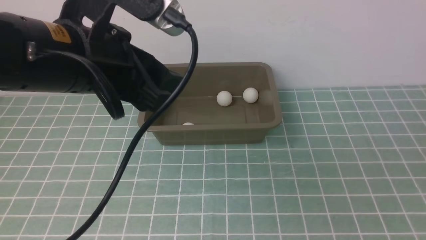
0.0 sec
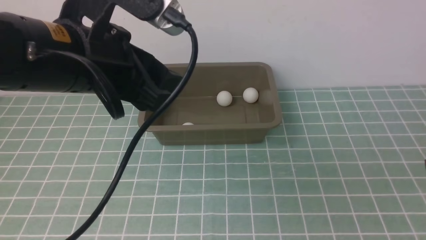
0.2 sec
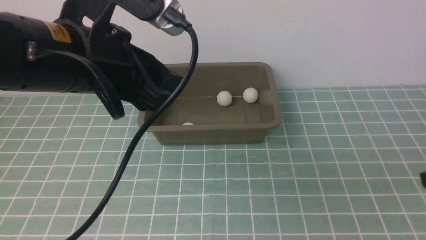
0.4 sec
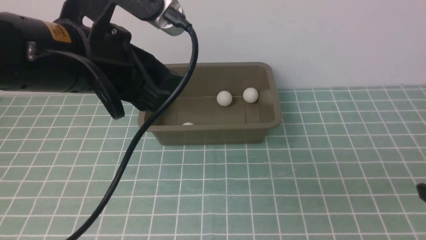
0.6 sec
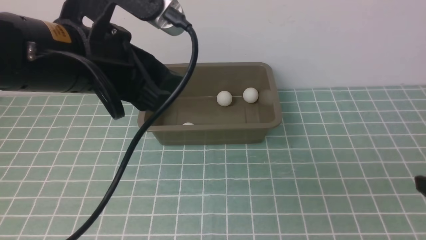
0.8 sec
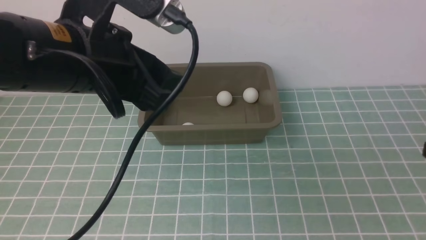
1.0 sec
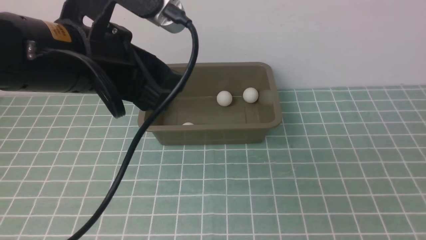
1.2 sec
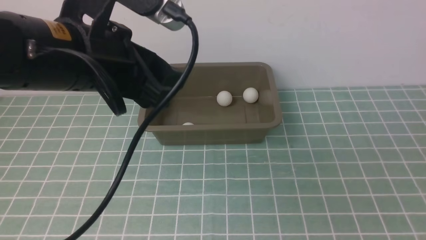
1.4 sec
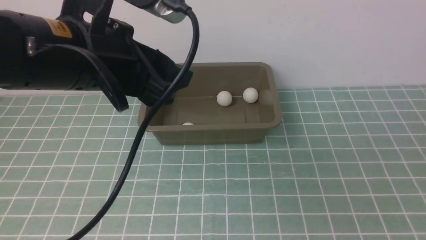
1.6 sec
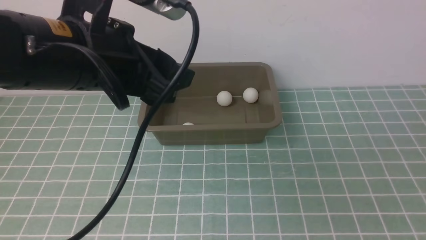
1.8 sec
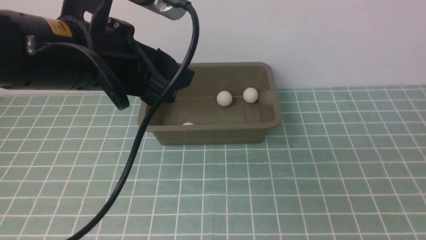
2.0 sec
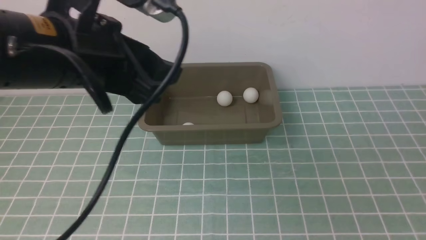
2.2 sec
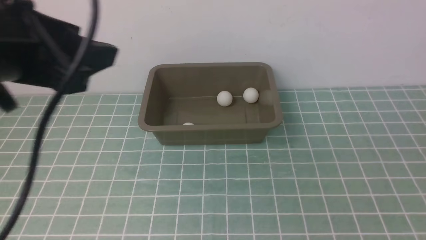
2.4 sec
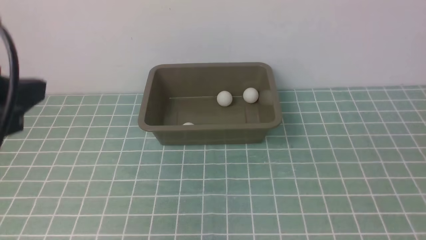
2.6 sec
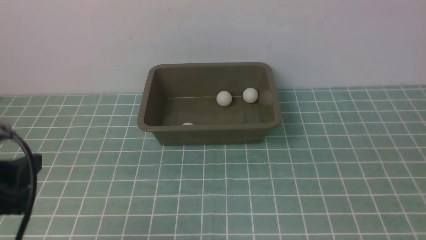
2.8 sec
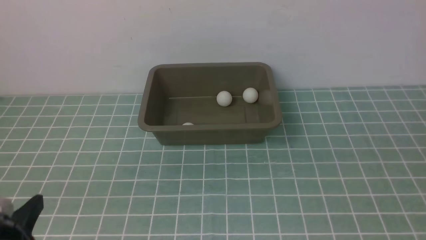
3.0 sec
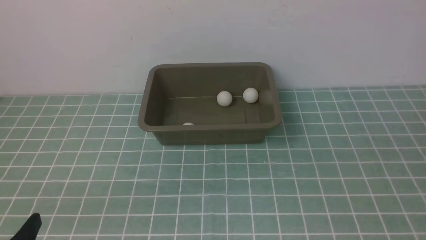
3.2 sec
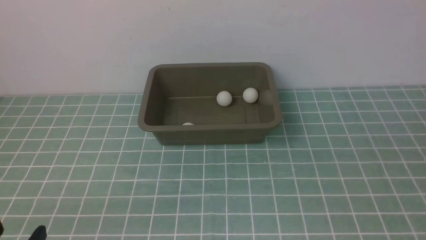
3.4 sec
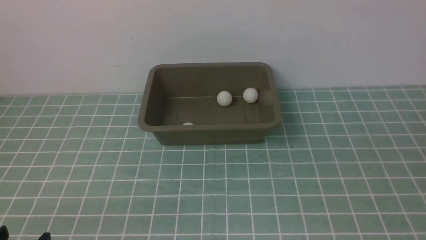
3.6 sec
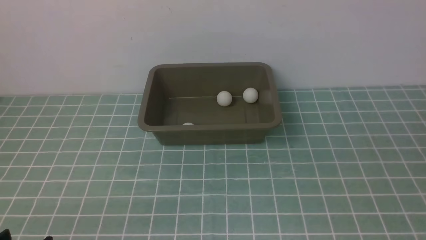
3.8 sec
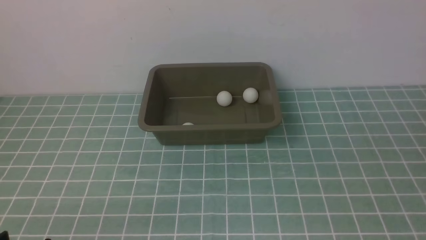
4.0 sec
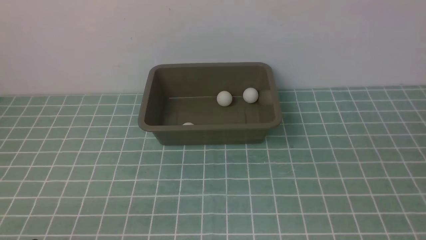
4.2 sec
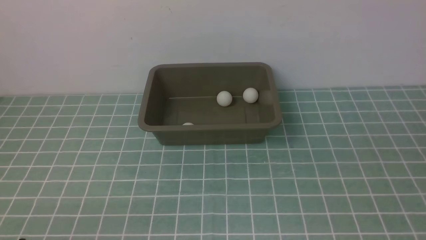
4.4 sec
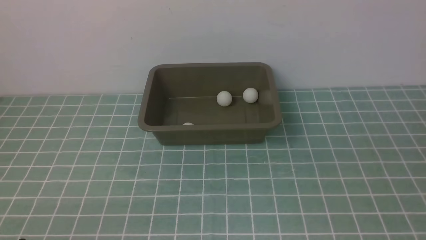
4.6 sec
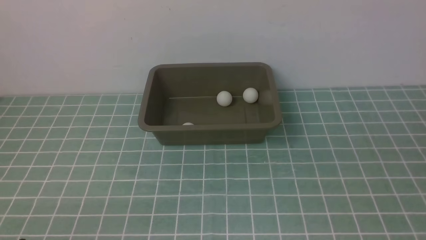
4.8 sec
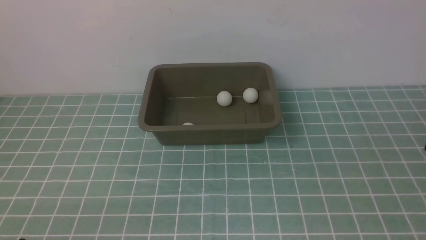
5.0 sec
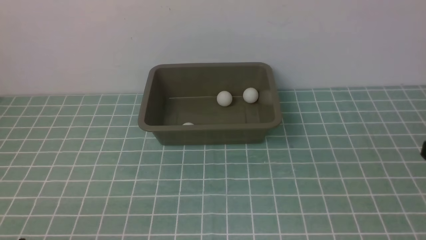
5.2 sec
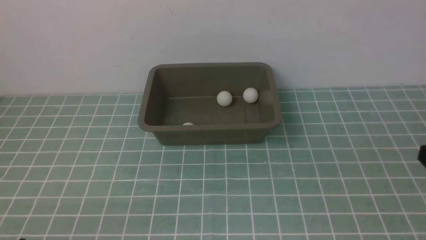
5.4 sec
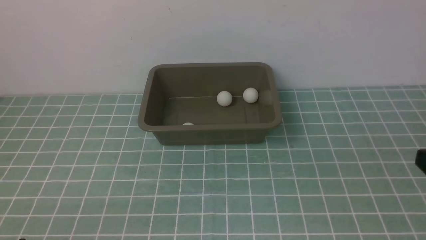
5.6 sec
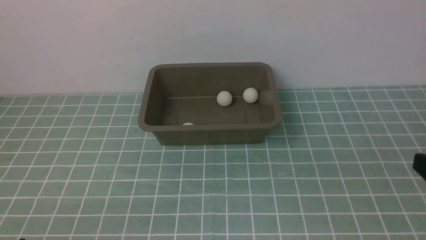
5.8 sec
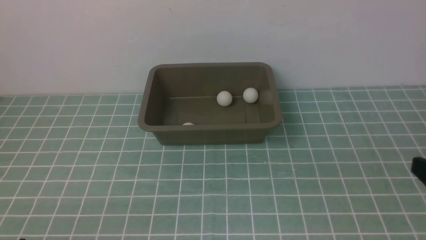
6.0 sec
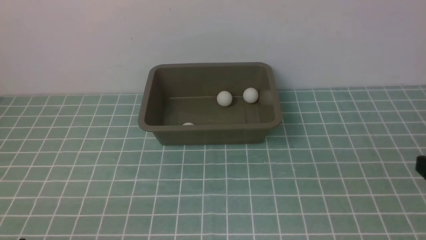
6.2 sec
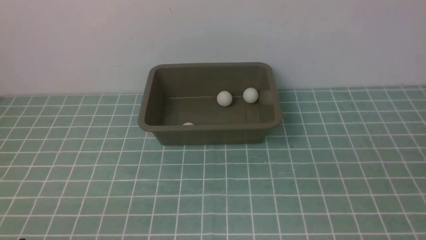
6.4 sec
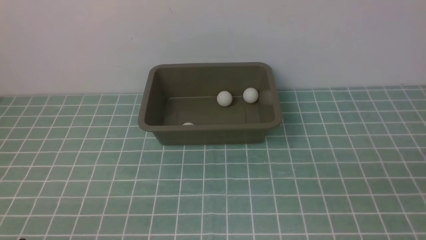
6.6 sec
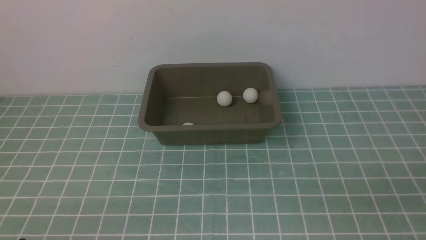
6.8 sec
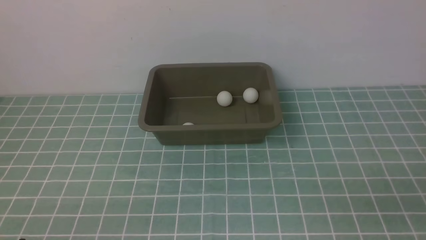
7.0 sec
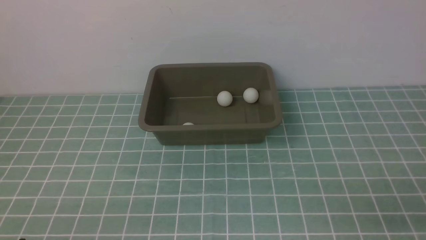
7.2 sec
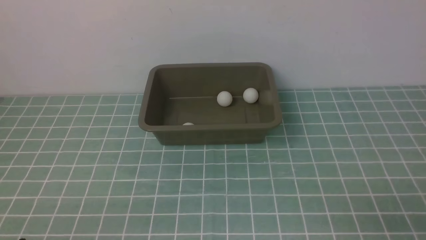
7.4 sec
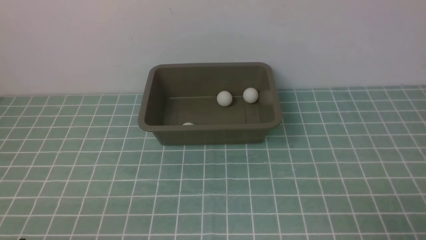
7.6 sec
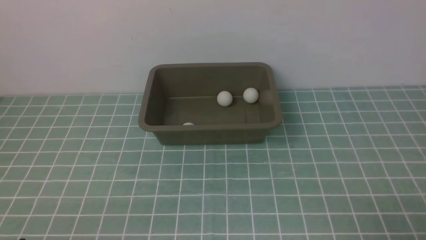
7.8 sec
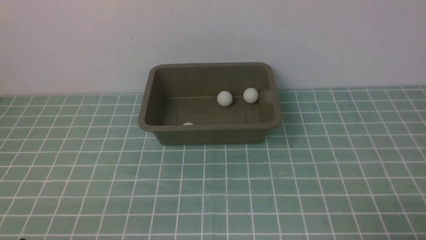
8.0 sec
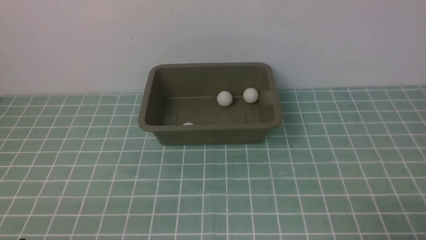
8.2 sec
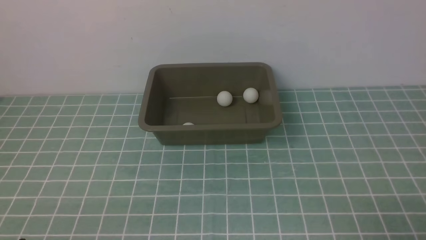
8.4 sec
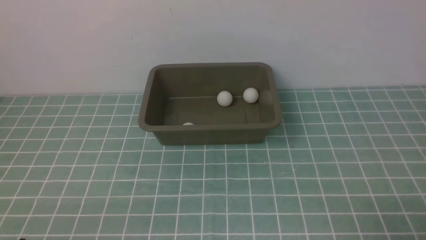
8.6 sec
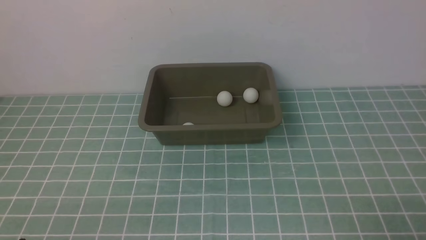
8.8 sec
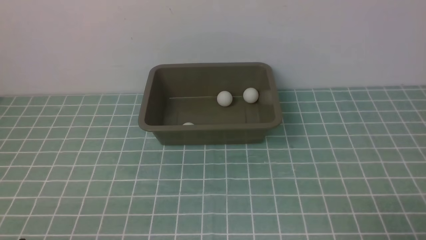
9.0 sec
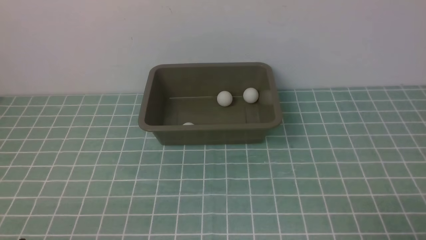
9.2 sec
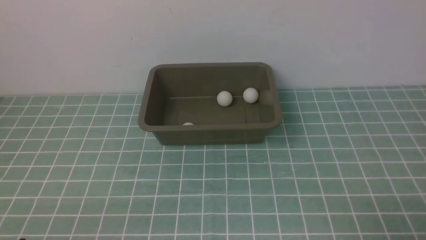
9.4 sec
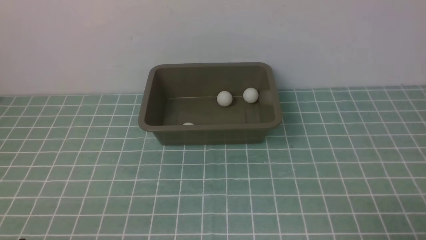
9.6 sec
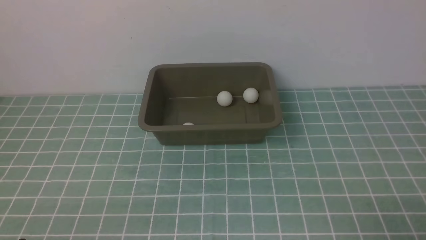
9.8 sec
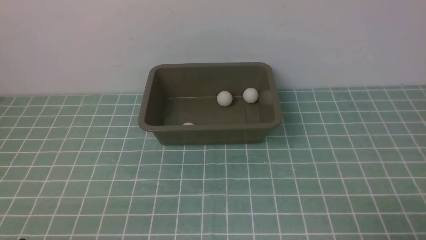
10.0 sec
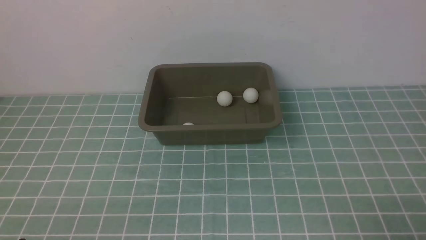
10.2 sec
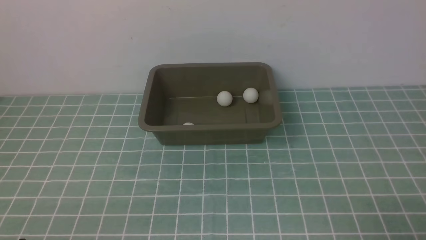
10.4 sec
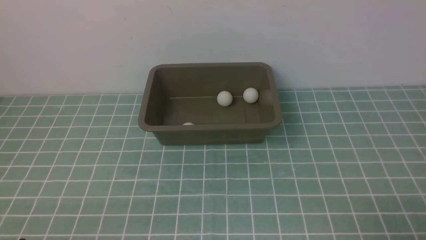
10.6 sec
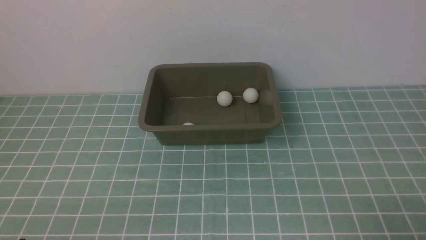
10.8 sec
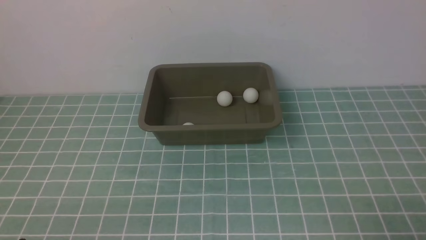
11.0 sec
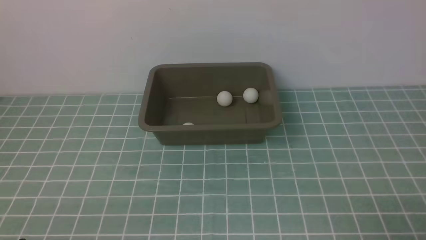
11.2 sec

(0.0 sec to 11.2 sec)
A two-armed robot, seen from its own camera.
0.0 sec - 1.6 sec: The grippers stay close to where they were, moving slightly.
1.6 sec - 3.2 sec: The left gripper shifts some 25 cm backward, downward and to the left.
8.0 sec - 11.2 sec: Neither gripper changes place.
